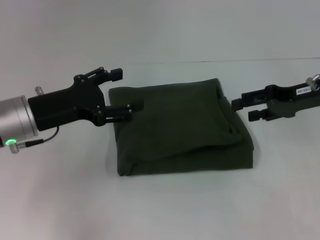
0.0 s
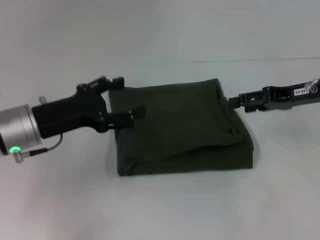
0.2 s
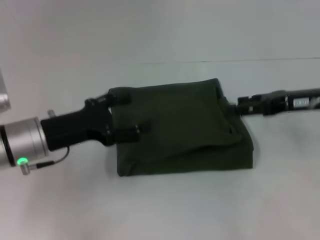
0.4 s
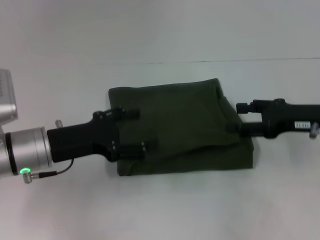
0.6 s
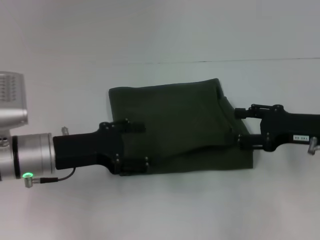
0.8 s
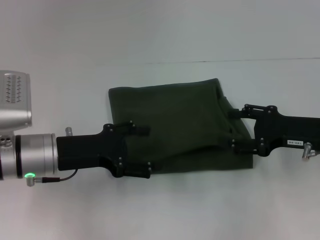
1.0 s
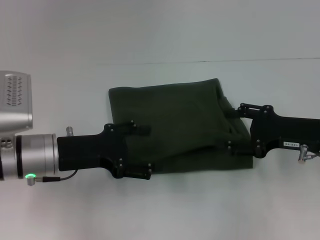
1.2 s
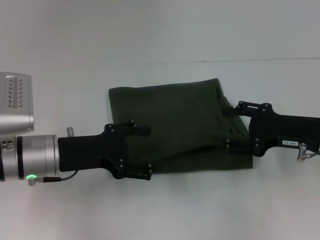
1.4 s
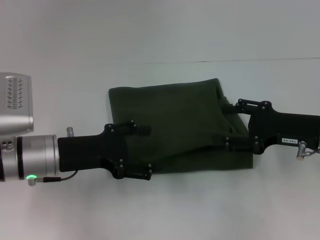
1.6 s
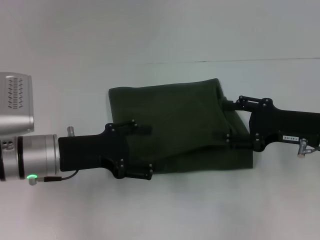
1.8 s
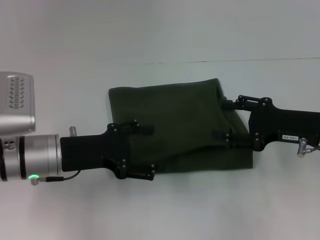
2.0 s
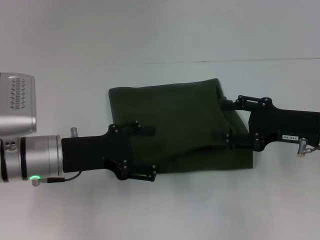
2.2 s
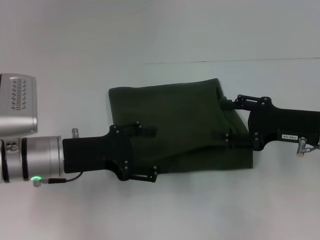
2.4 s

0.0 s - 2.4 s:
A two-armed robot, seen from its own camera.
0.0 s - 1.2 s: The right gripper goes about 10 cm backward and downward.
1.2 s - 2.4 s: The two grippers keep their place.

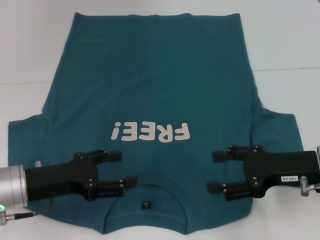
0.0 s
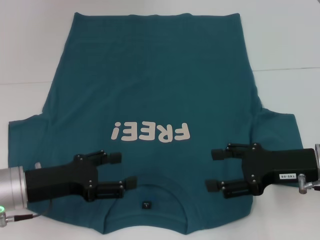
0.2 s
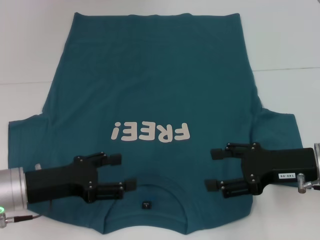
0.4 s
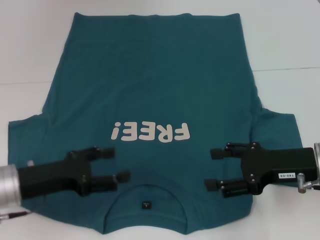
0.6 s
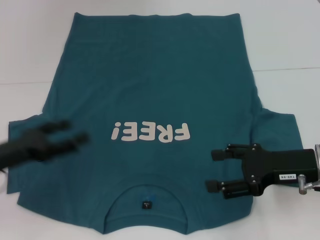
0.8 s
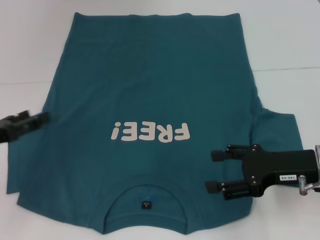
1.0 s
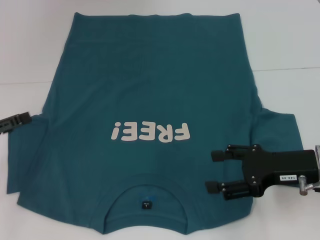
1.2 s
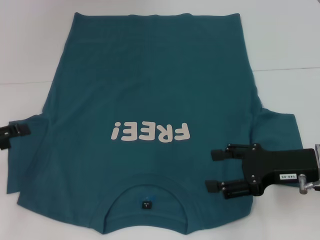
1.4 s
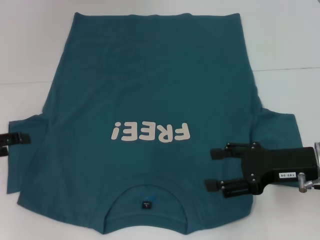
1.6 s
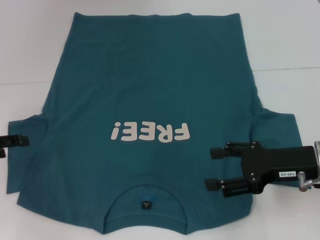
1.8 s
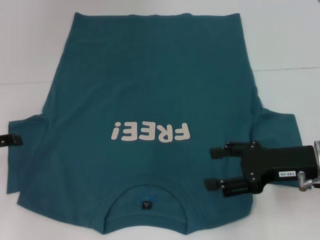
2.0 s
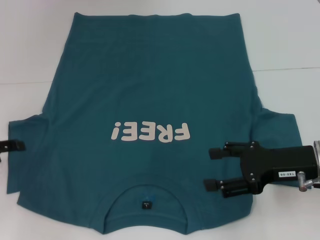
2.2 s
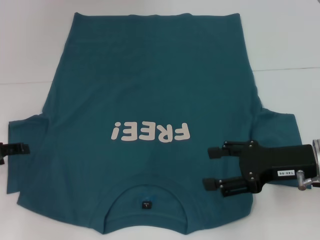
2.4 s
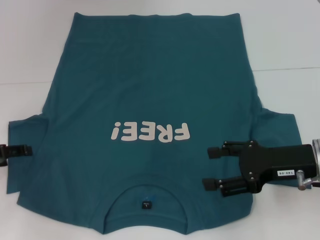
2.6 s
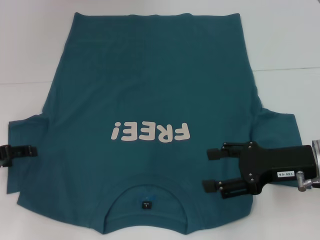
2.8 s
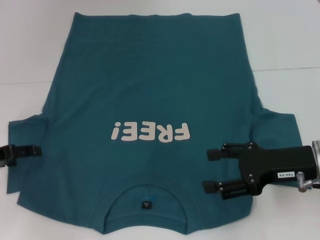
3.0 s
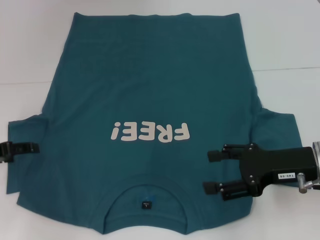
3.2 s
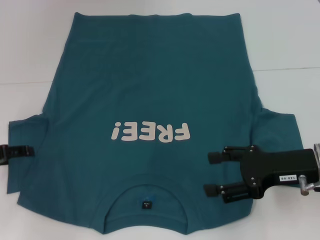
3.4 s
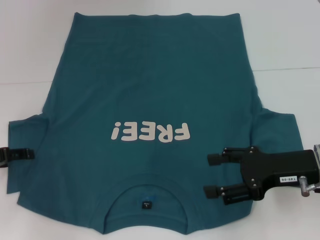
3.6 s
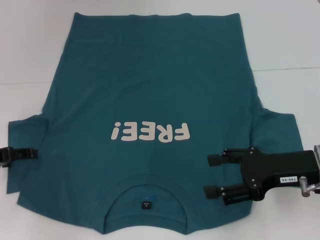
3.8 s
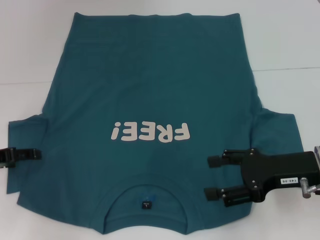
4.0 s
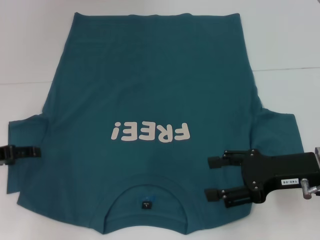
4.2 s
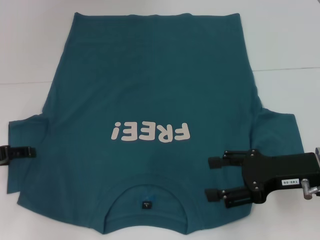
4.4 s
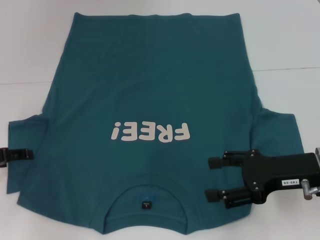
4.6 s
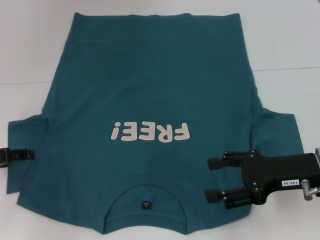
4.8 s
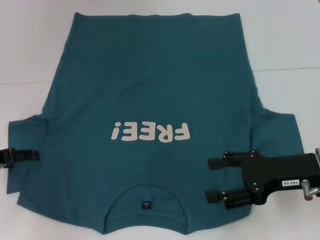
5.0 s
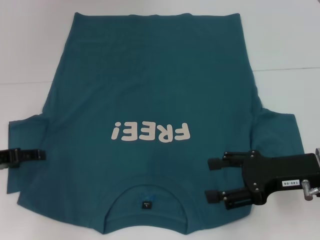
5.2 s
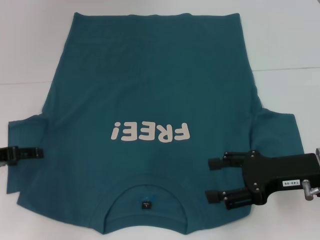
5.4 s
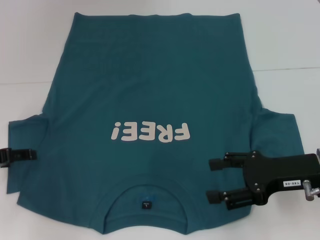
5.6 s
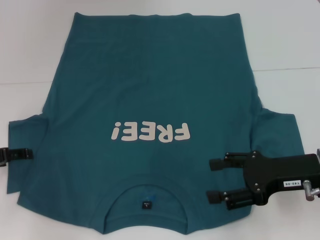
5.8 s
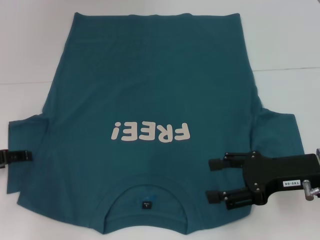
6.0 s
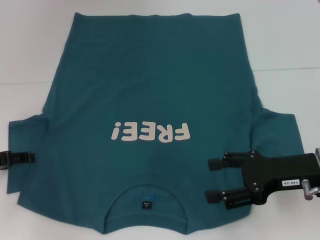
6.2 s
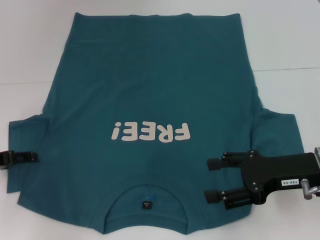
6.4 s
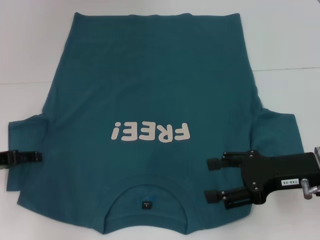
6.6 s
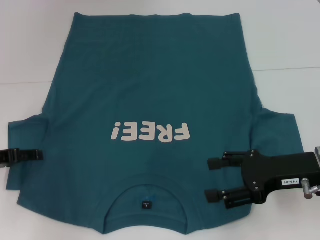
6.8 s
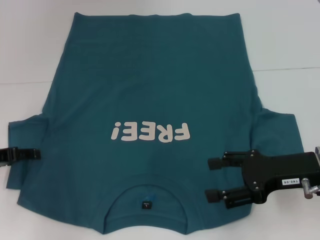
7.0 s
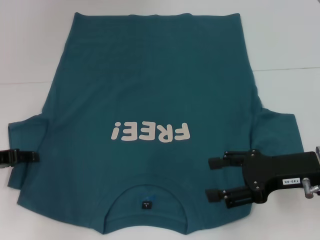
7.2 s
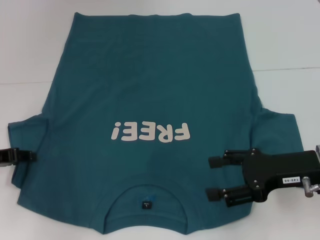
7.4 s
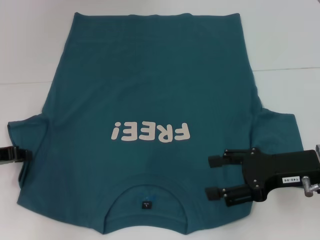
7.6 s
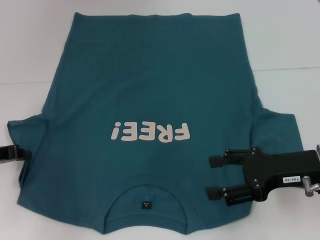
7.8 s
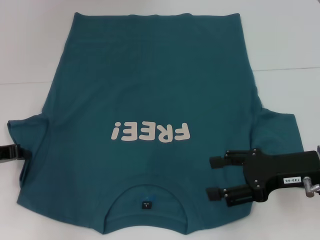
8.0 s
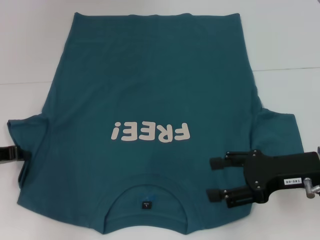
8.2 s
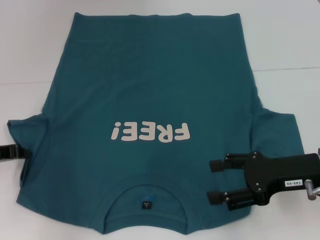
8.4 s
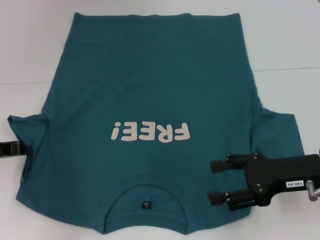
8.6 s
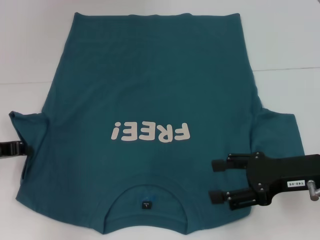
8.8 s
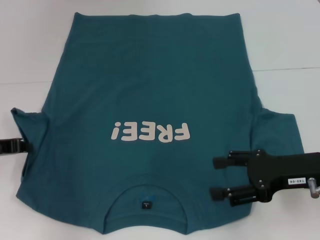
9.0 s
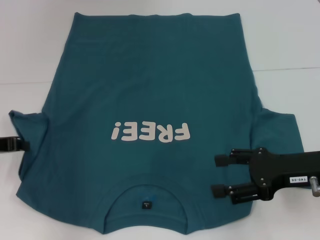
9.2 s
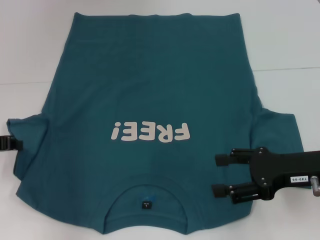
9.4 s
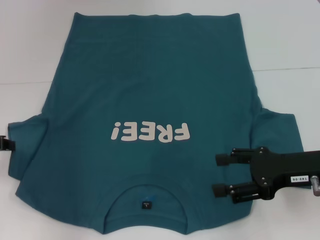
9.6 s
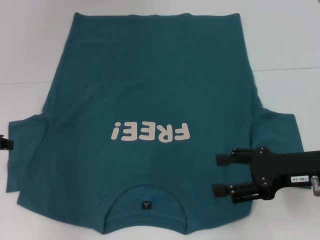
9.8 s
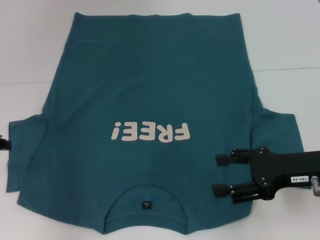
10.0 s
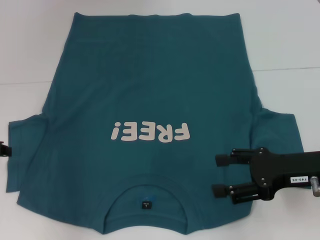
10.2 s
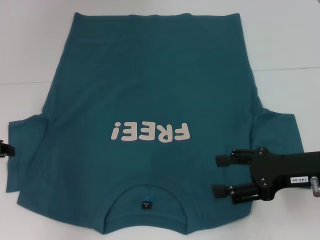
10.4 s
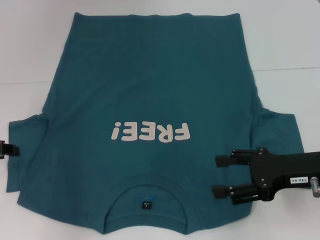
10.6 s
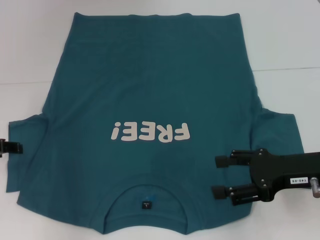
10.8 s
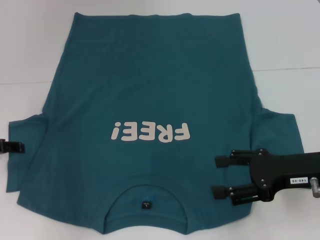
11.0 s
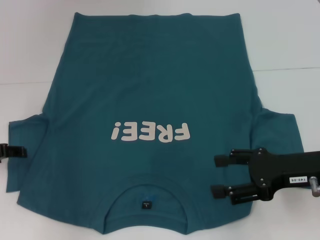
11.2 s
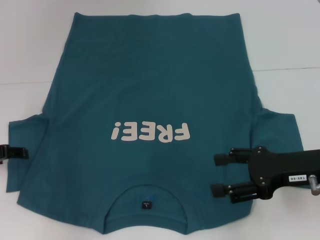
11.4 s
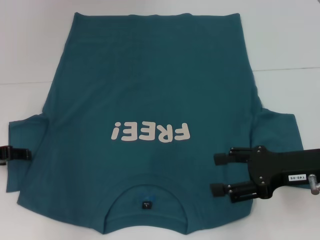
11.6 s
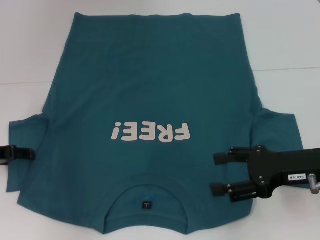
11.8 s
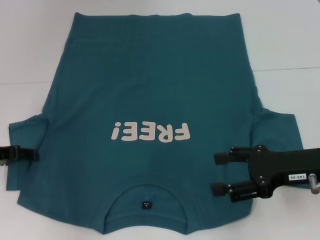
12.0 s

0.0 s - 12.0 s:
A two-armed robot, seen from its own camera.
0.0 s - 1.6 s: The left gripper is displaced to the left by about 15 cm.
1.6 s - 3.0 s: The grippers move only a little.
3.0 s - 4.4 s: Neither gripper changes place.
4.4 s - 6.0 s: Both grippers stay about where they are.
6.0 s - 7.6 s: The left gripper closes its fingers.
7.6 s - 9.0 s: The left gripper closes its fingers.
9.0 s - 10.4 s: The grippers move only a little.
10.4 s - 12.0 s: The left gripper opens.

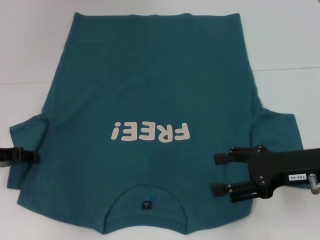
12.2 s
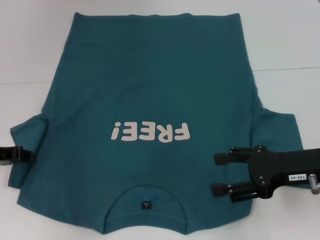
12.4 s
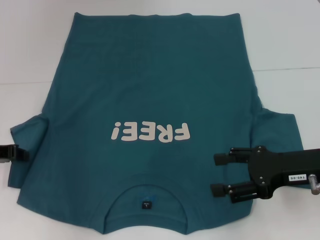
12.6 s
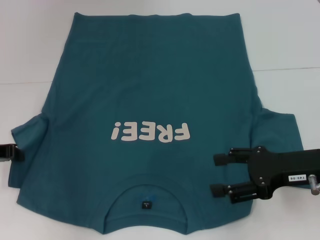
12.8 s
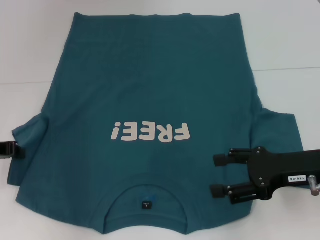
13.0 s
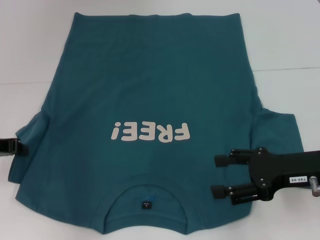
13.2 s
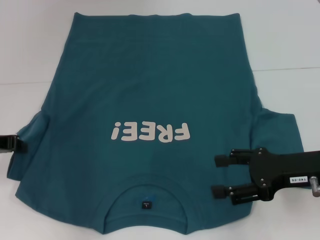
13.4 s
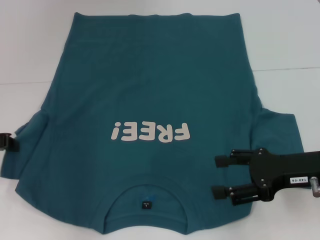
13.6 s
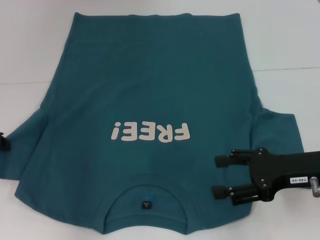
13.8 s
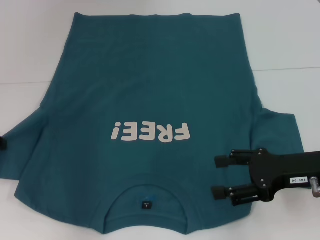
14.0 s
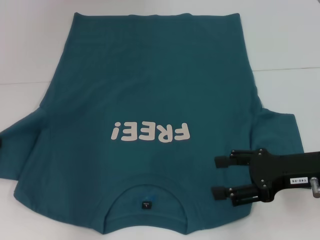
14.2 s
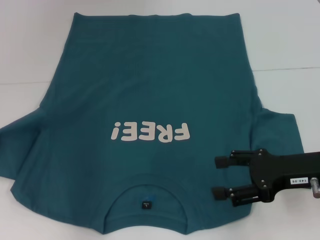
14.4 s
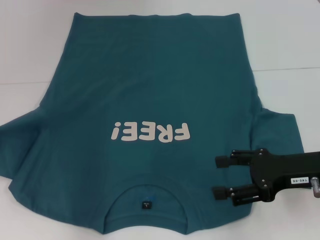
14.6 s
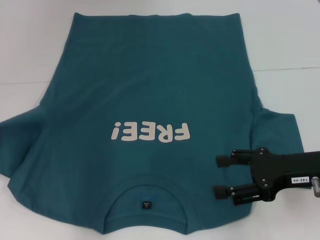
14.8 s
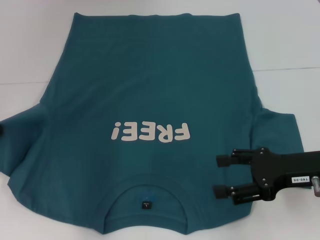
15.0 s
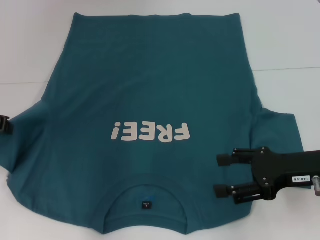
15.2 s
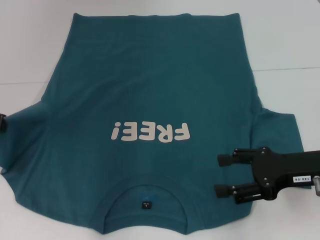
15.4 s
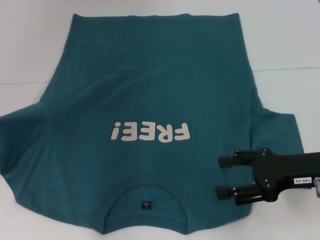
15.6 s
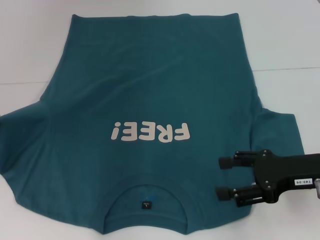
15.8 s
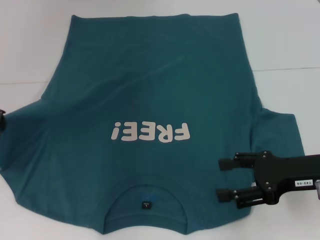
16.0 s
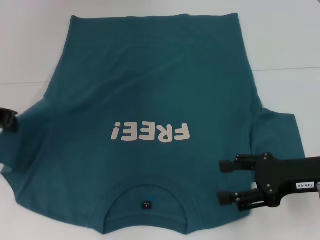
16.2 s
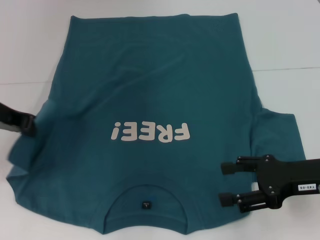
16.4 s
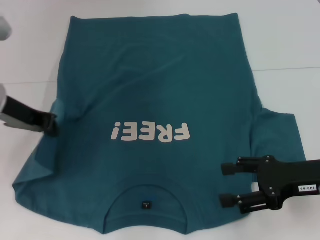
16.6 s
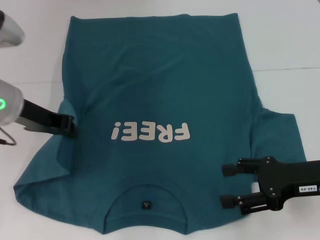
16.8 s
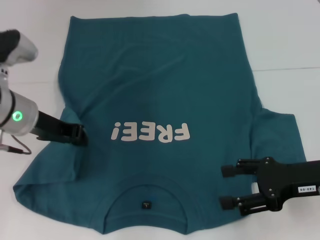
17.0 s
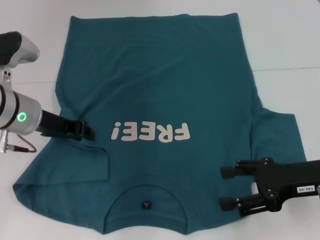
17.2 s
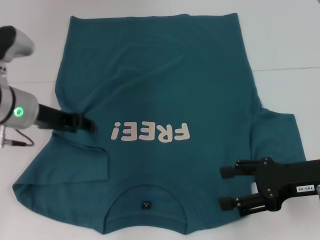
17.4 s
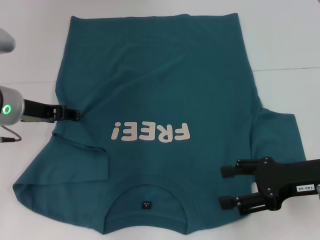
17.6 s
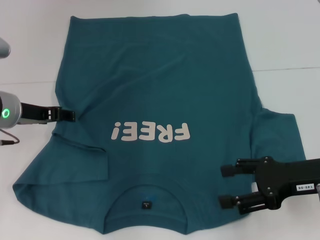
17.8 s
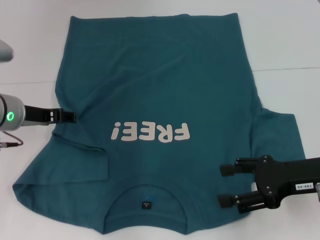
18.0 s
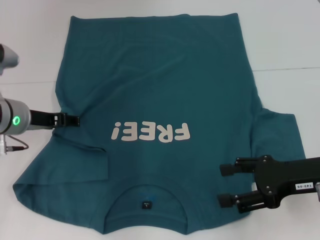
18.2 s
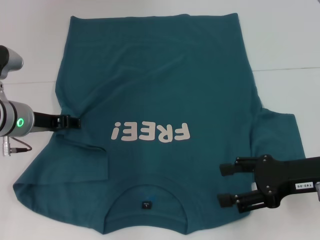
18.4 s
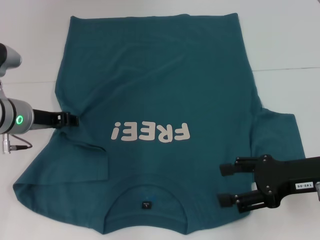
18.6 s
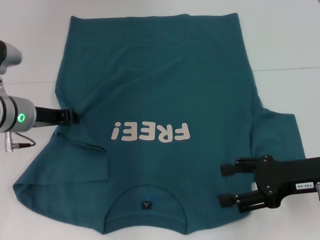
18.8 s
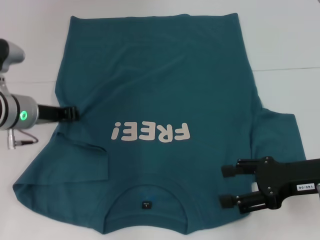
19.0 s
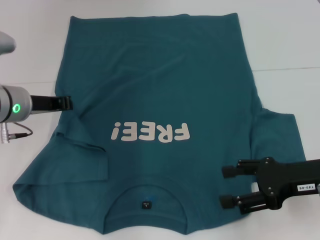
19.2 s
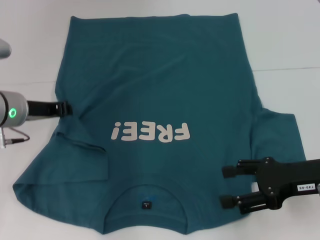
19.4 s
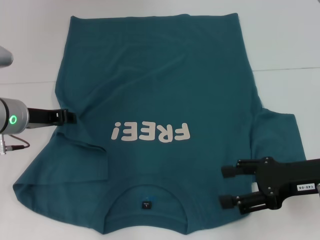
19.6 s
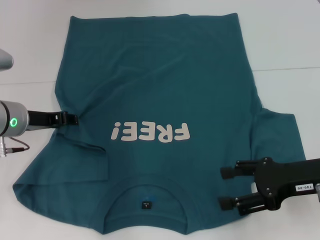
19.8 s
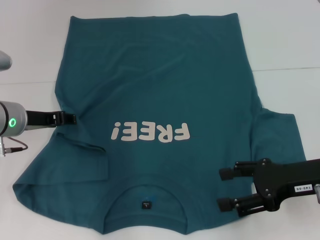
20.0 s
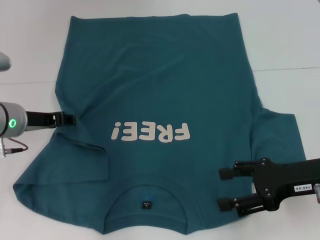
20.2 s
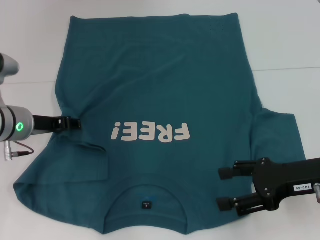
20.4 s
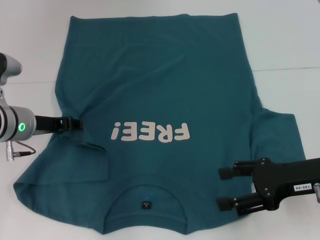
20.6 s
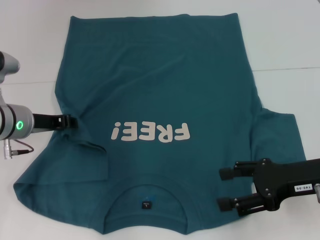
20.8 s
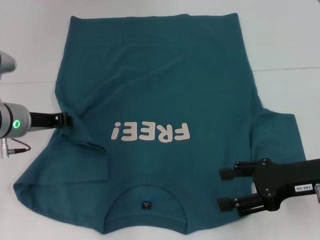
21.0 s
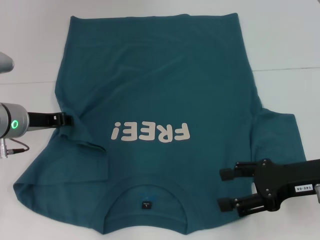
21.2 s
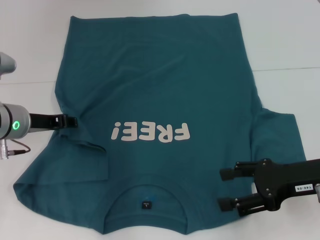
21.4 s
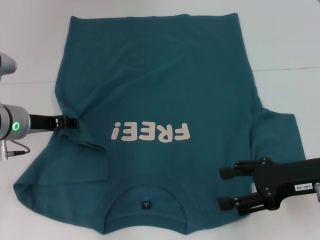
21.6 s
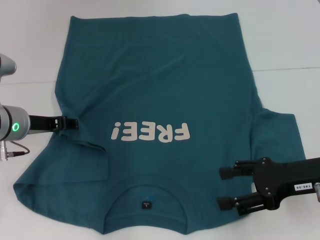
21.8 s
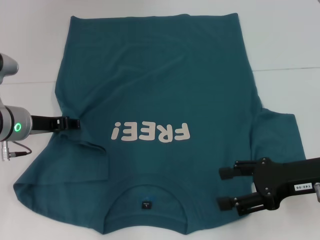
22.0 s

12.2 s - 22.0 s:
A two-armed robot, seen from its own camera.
12.2 s - 13.6 s: The left gripper closes up.
13.6 s - 15.0 s: The grippers make only small movements.
15.0 s - 16.4 s: The left gripper moves to the right, roughly 5 cm.
16.4 s - 17.8 s: The left gripper travels downward by some 5 cm, and opens.
17.8 s - 19.2 s: The left gripper closes up.
19.2 s - 20.6 s: The left gripper opens.
20.6 s - 22.0 s: The two grippers keep their place.
